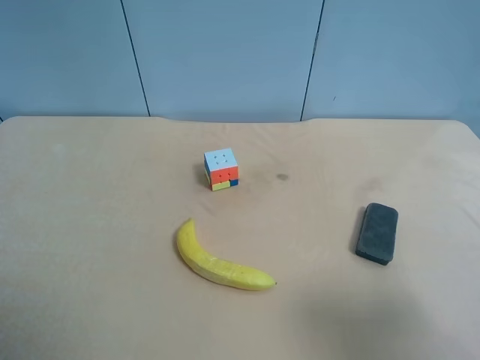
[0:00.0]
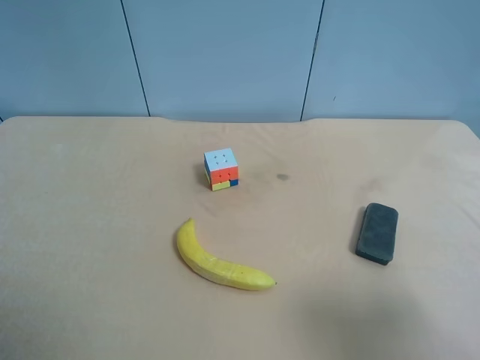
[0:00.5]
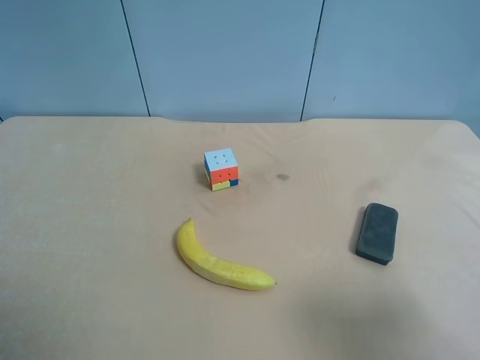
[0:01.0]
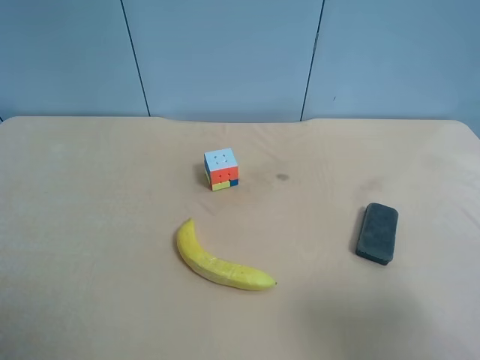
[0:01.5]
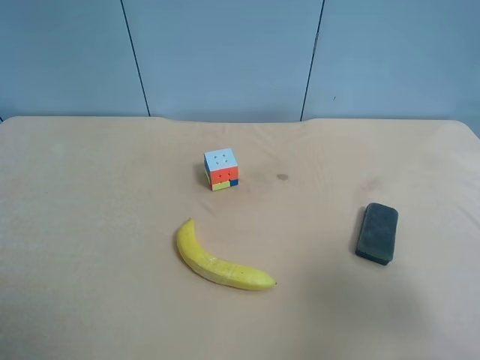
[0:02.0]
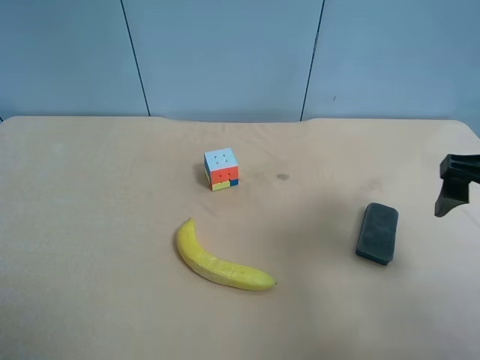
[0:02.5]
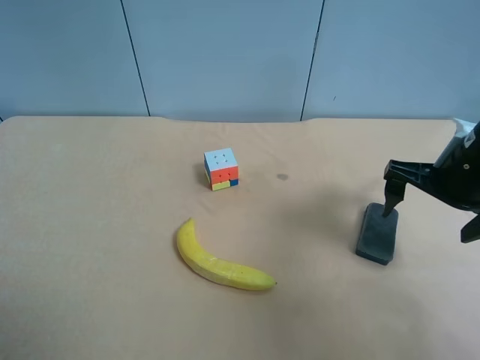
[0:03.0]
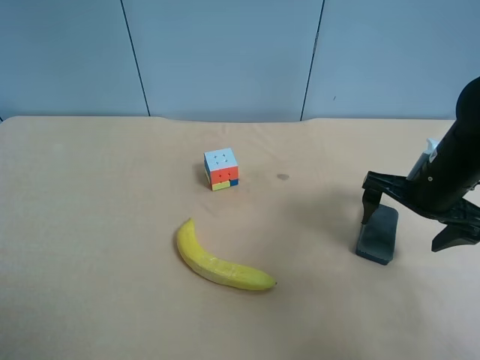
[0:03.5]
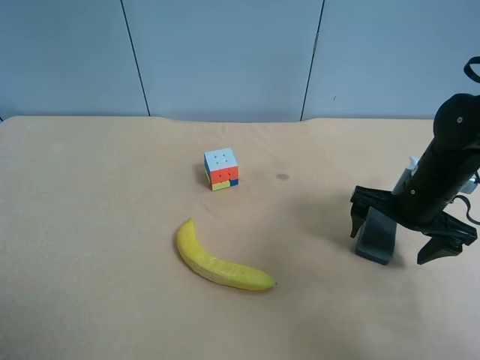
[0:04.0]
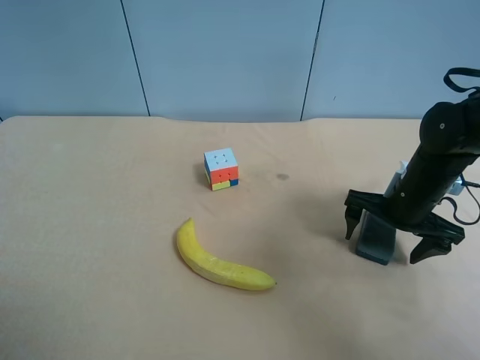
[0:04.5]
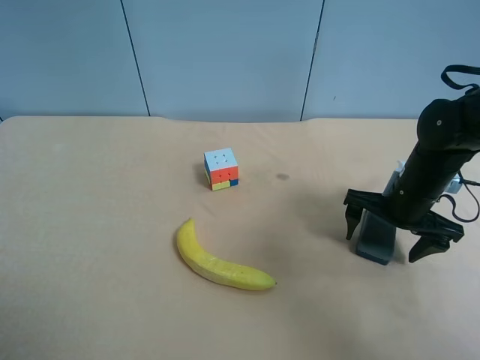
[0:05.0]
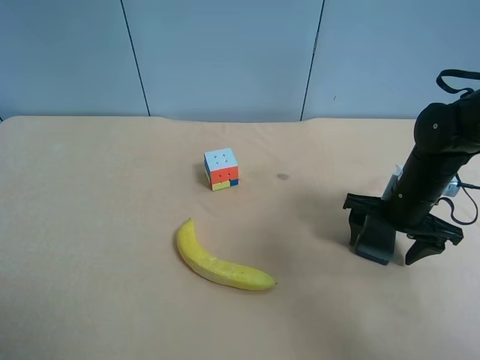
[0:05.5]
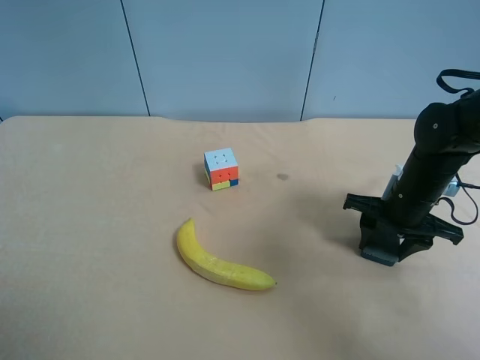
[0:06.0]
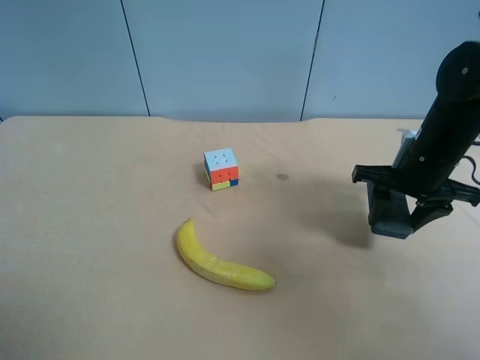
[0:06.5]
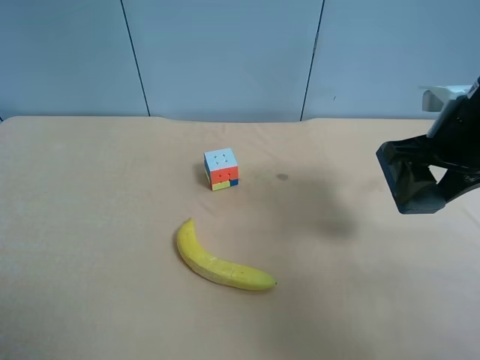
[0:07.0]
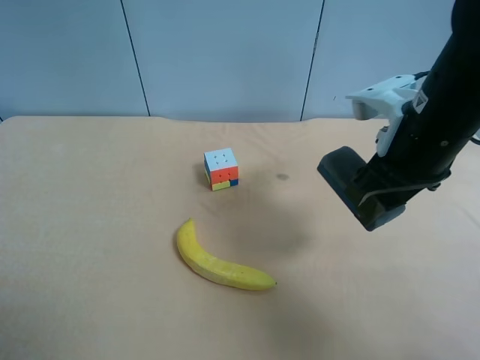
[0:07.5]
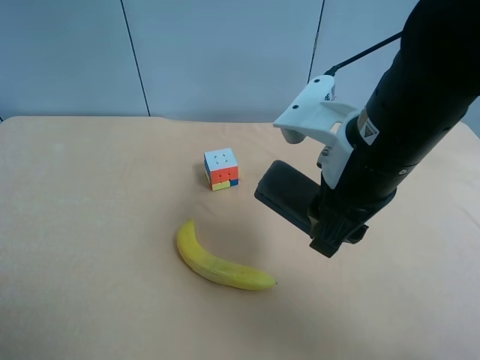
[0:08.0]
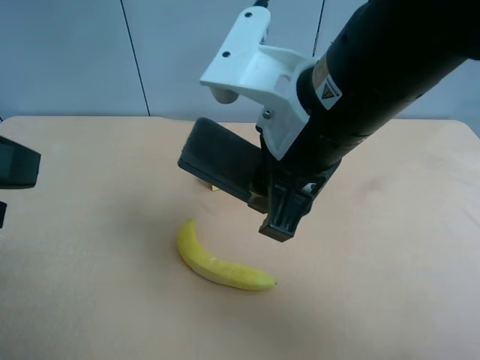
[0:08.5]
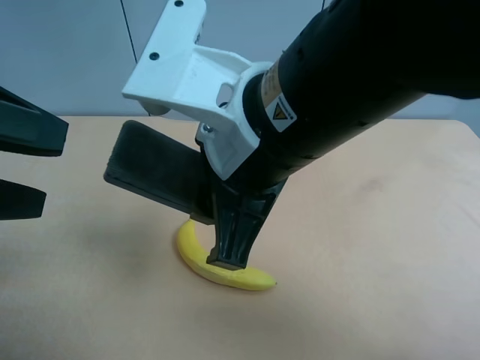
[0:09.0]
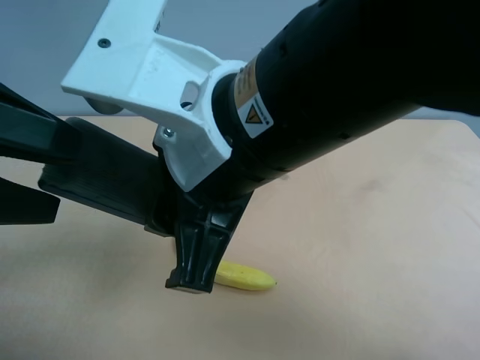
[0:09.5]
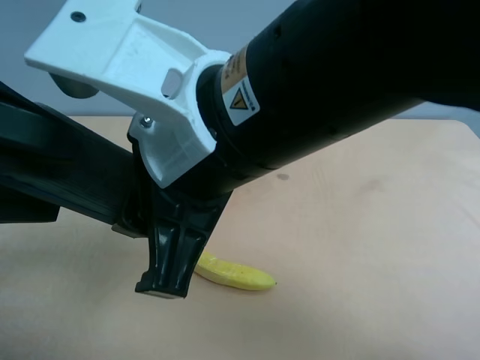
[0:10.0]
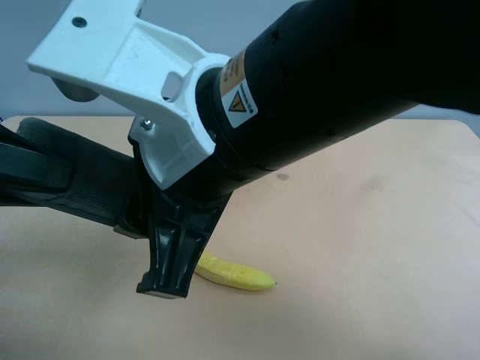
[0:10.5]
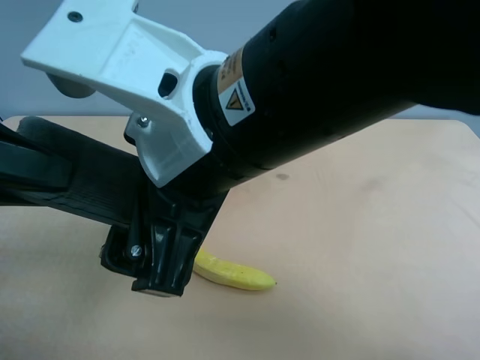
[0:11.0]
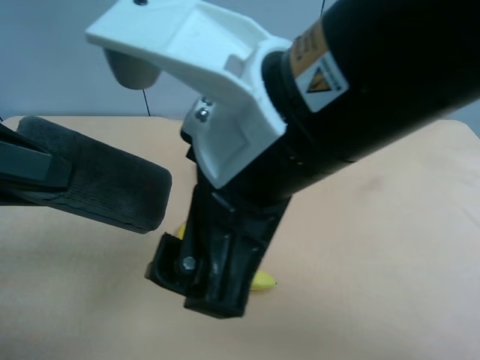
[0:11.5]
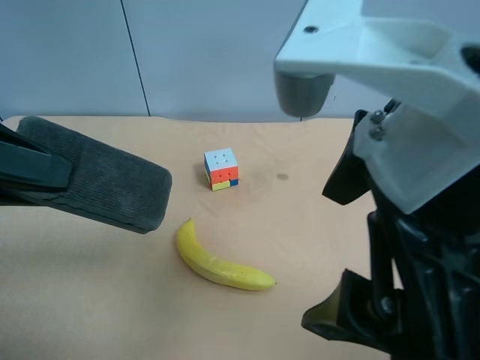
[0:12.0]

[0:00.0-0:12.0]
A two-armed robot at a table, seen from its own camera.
Task of the whole recording: use the right gripper to pick up the item and transfer it from the right gripper to the left gripper.
0:00.0 to 0:02.0: The right gripper is displaced forward by about 5 cm.
0:02.0 to 0:04.0: The right gripper heads forward and downward, covering some 25 cm.
0:04.0 to 0:06.0: The right gripper closes its fingers.
0:06.0 to 0:08.0: The right gripper is displaced upward, to the left and backward by about 20 cm.
0:08.0 to 0:10.0: The left gripper shifts approximately 10 cm forward and to the right. Meanwhile the right gripper is displaced to the left, upward and backward by about 15 cm.
0:10.0 to 0:12.0: The right gripper heads to the right, covering about 10 cm, and opens up, while the left gripper closes its fingers.

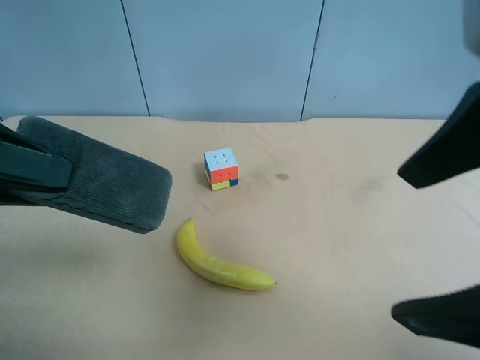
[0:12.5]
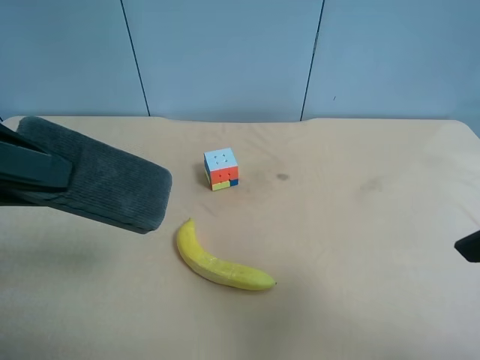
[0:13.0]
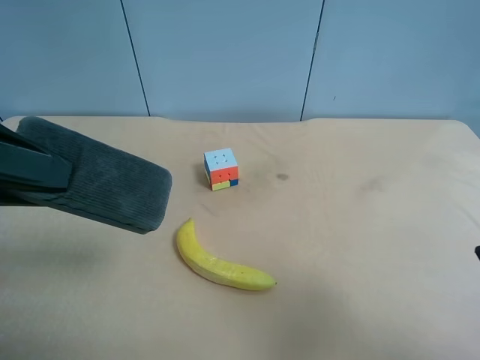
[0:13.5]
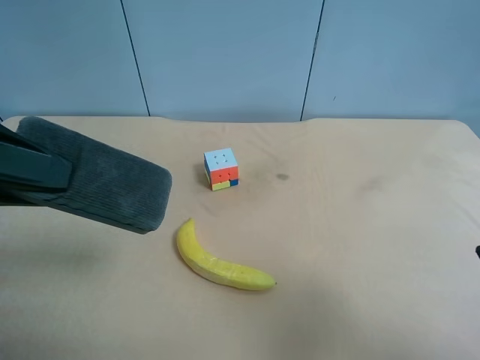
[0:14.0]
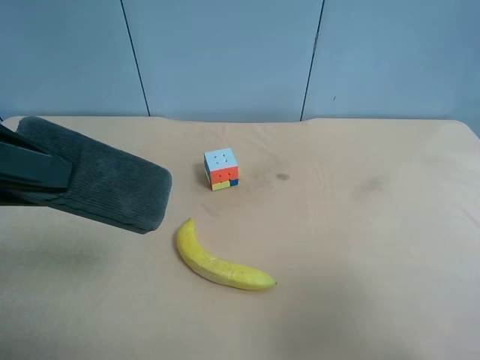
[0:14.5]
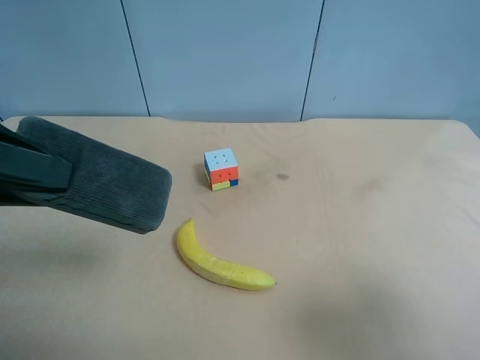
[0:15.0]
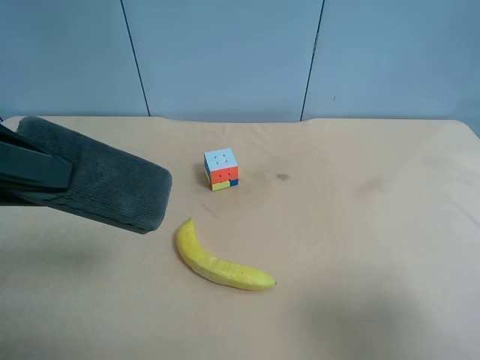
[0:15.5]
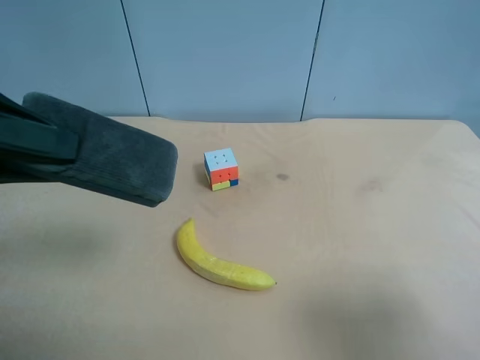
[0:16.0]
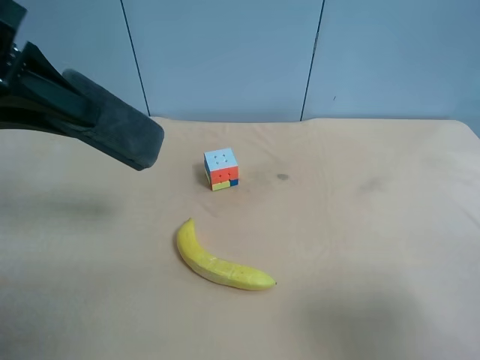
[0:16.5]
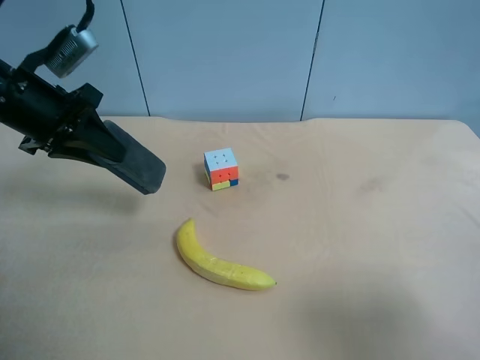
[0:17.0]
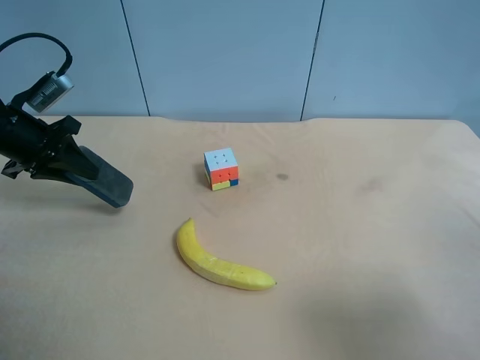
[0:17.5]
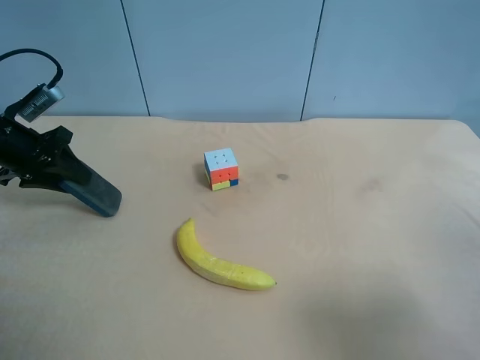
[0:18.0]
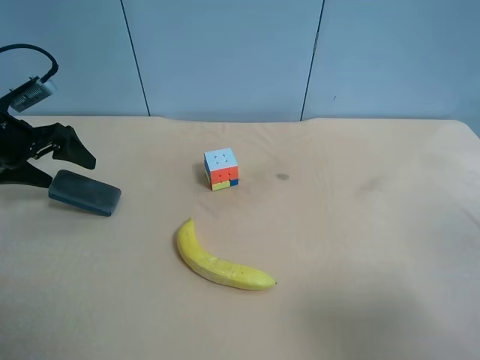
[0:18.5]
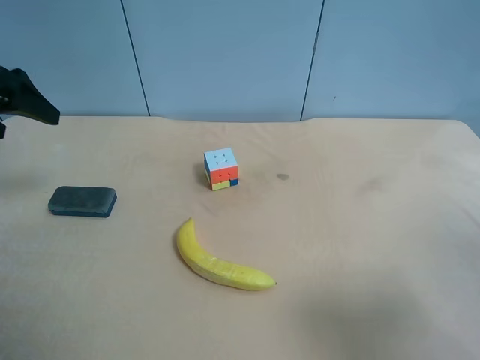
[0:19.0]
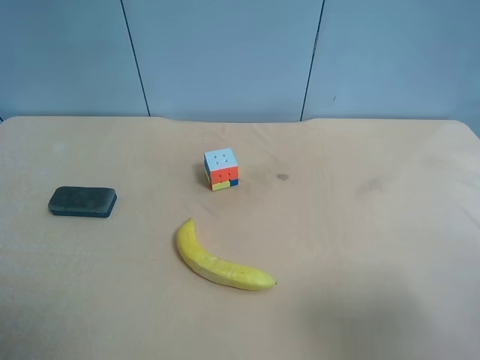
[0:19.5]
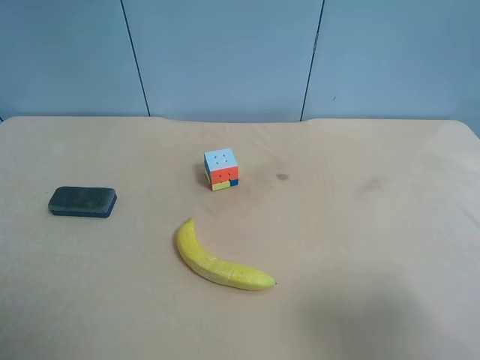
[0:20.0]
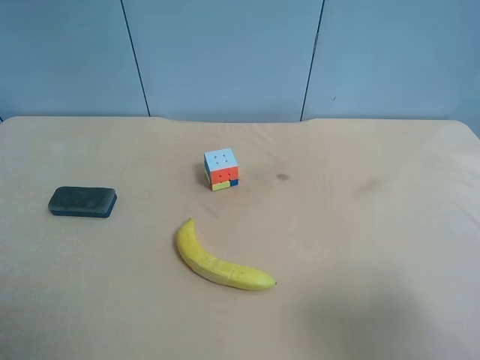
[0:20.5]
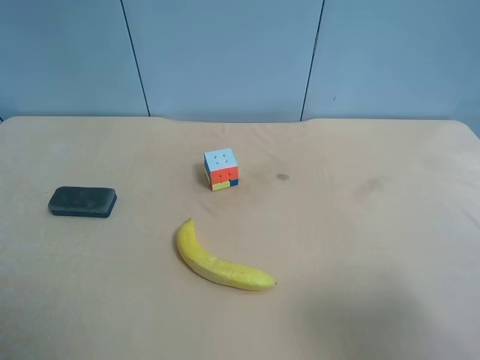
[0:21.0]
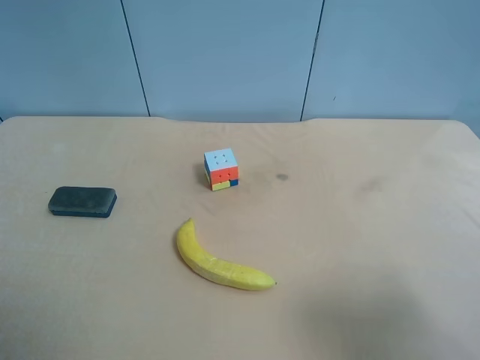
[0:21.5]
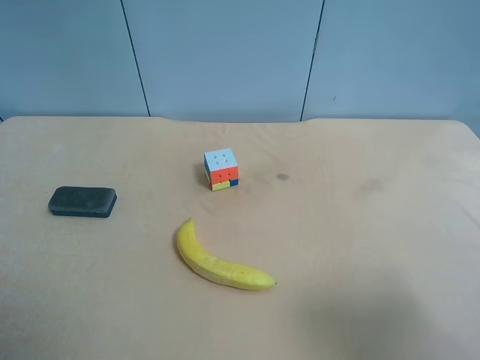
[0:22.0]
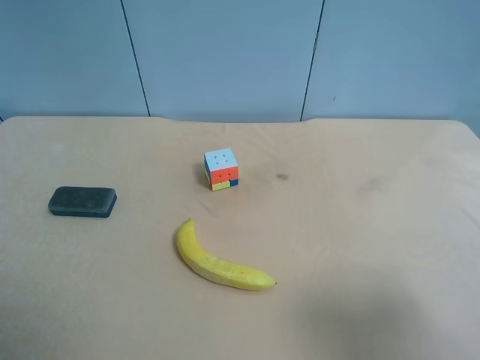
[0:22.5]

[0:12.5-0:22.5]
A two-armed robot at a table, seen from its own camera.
Task of the whole recording: use the right gripper to pick up the item and transfer it from the right gripper to the left gripper.
0:12.5 to 0:14.5: The right gripper shifts about 15 cm to the right, downward and backward.
0:14.5 to 0:16.5: The left gripper moves forward, roughly 10 cm.
0:16.5 to 0:18.5: The left gripper goes roughly 20 cm downward, to the left and forward, and opens up.
0:18.5 to 0:20.5: The left gripper moves backward, about 35 cm.
